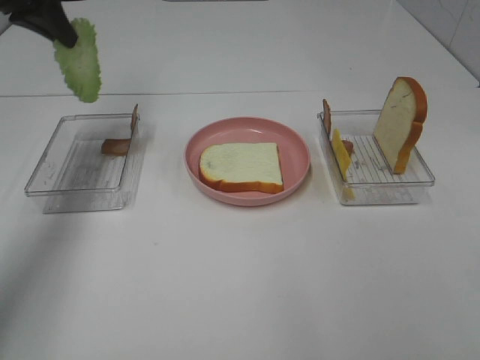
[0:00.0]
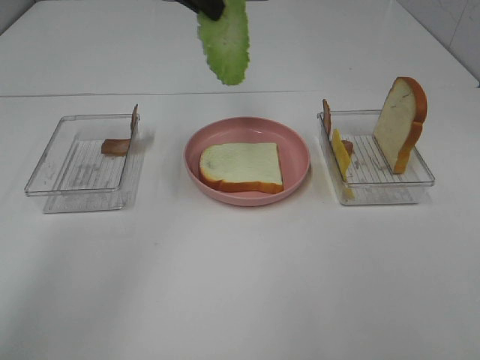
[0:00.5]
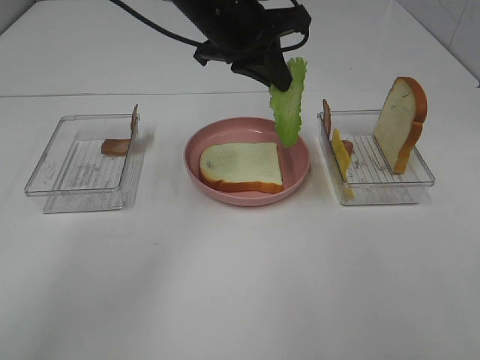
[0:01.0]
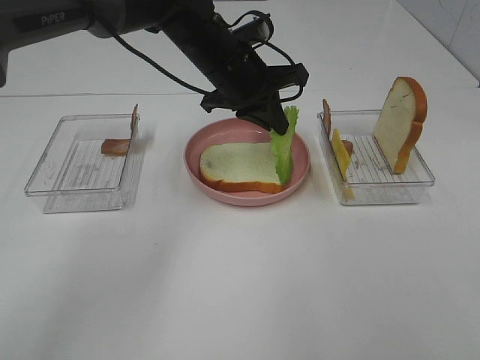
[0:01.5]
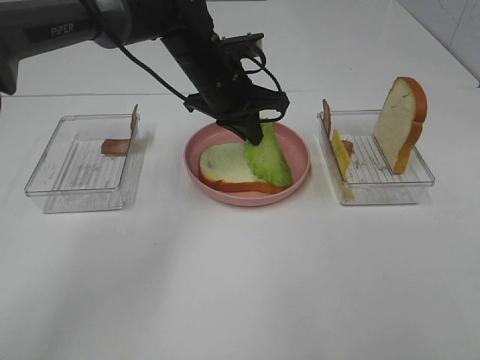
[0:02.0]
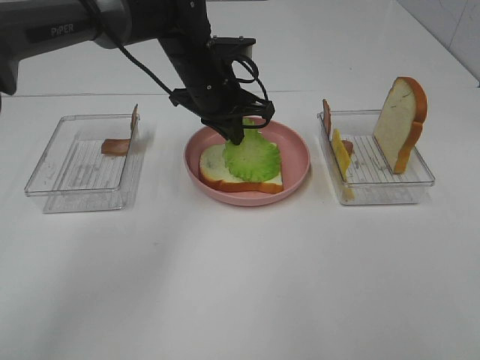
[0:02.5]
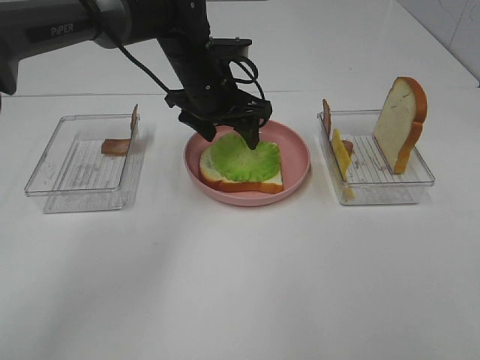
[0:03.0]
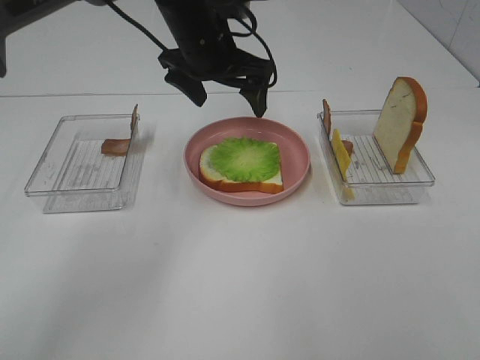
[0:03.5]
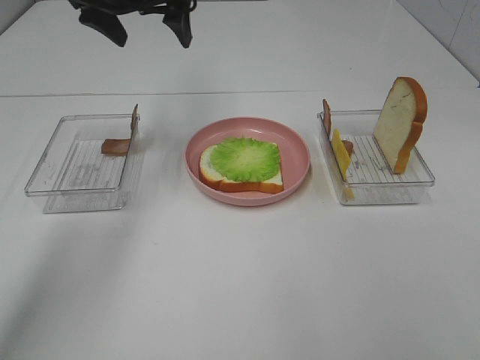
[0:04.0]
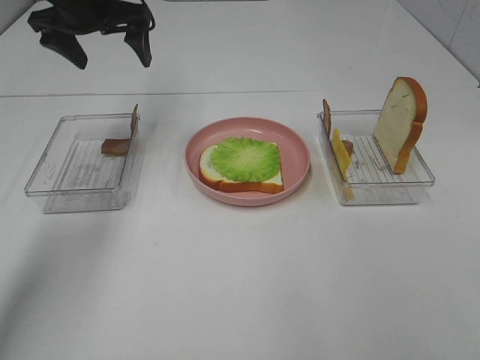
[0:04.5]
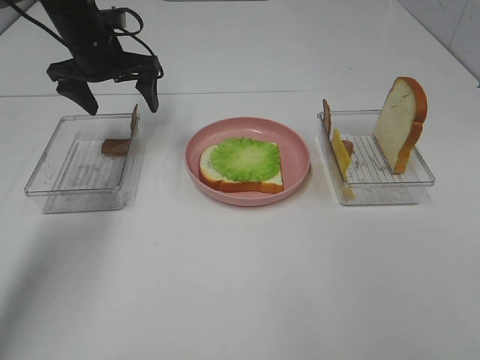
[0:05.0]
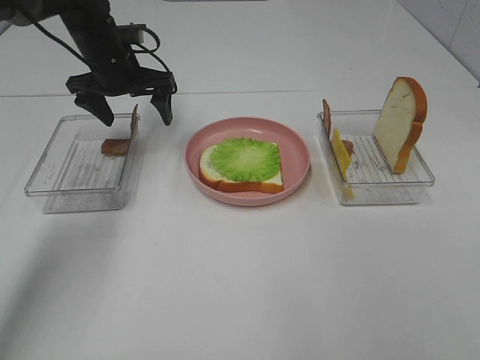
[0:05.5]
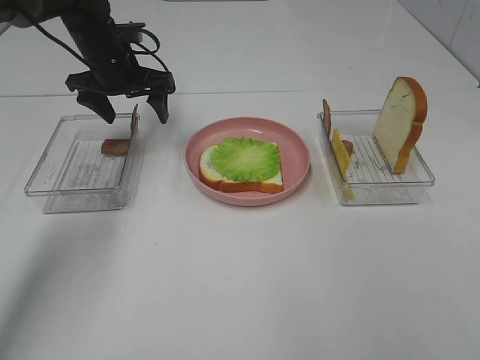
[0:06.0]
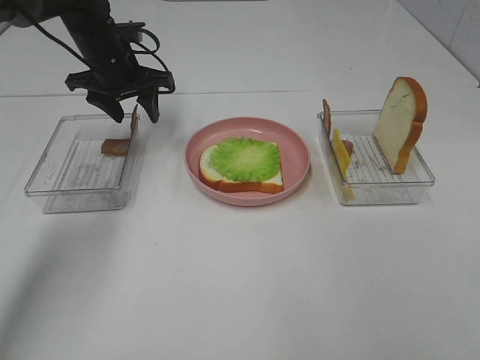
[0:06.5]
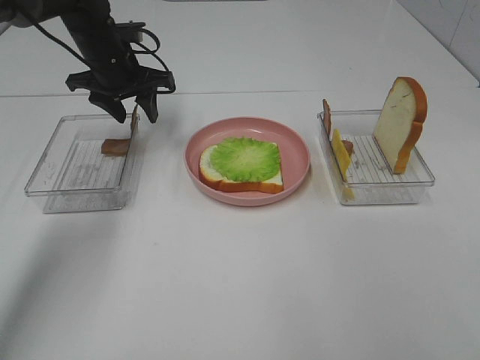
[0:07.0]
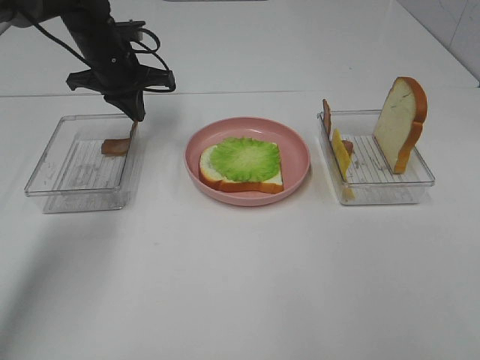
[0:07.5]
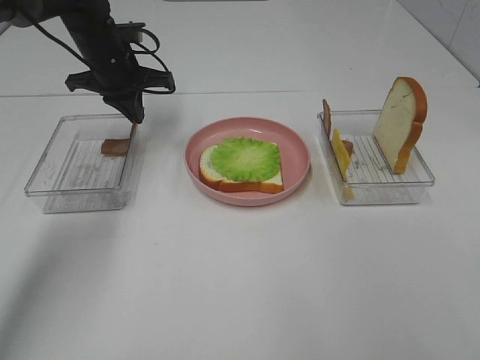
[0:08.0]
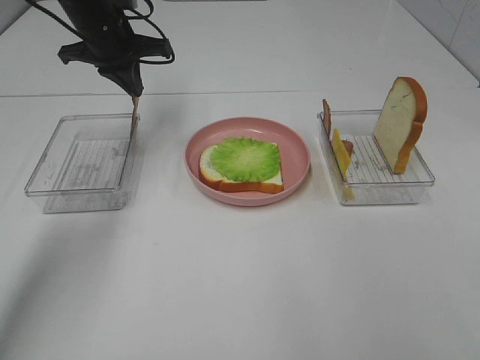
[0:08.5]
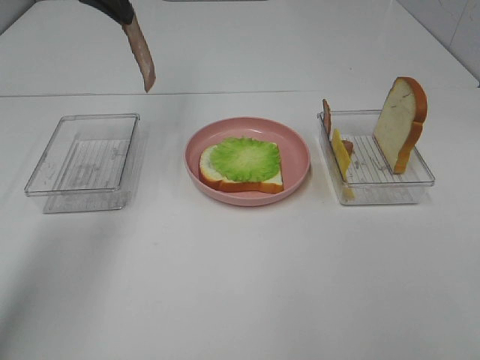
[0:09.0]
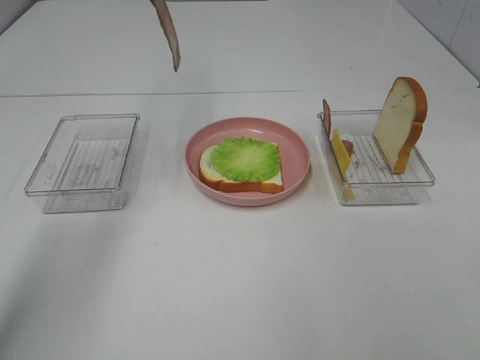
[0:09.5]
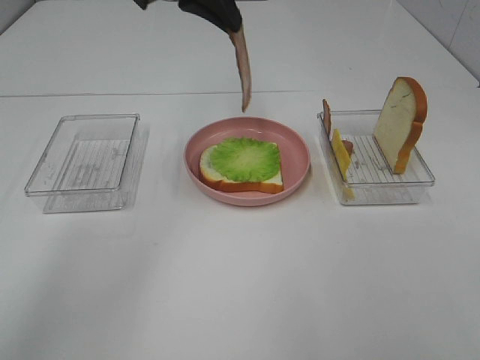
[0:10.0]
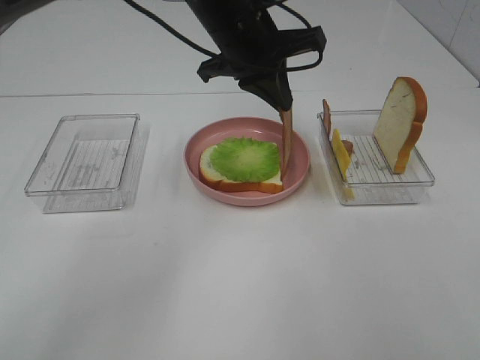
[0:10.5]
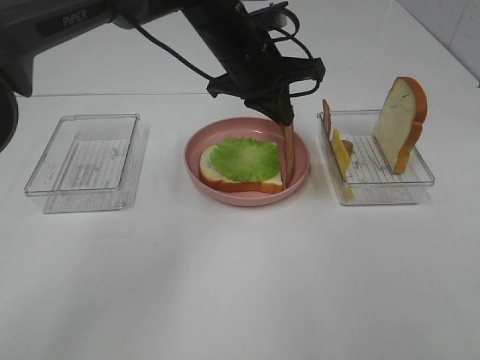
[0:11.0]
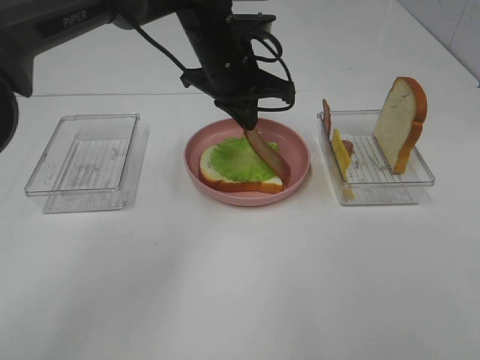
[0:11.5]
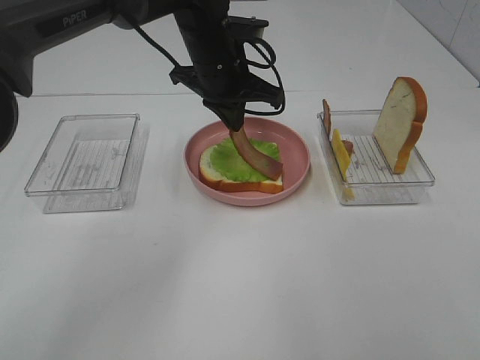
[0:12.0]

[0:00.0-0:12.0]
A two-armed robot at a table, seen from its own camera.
Task of the whole recording: Make sandwiches.
Step, 0:00.0 to 0:03.0: Left hand:place the lettuce slice on the bread slice.
Step, 0:03.5 to 0:07.5: Left hand:grab the bacon.
0:00.0 to 0:02.0: The left gripper moves to the right and downward, about 25 cm.
0:02.0 to 0:04.0: The left gripper is displaced to the left and upward by some 20 cm, and opens up.
0:04.0 to 0:06.0: The left gripper goes roughly 10 cm downward.
0:06.0 to 0:08.0: The left gripper closes up.
0:08.0 to 0:10.0: The left gripper travels upward, to the right and backward by some 20 cm.
0:10.0 to 0:12.0: The left gripper shifts about 10 cm downward.

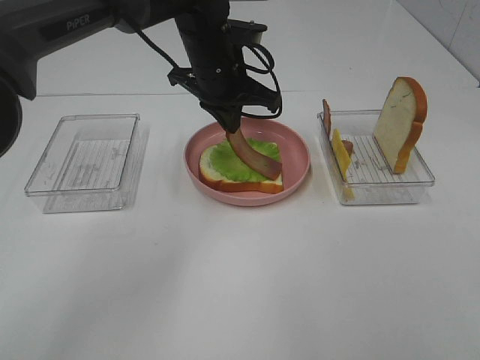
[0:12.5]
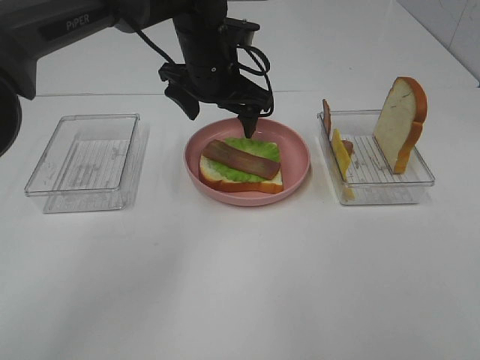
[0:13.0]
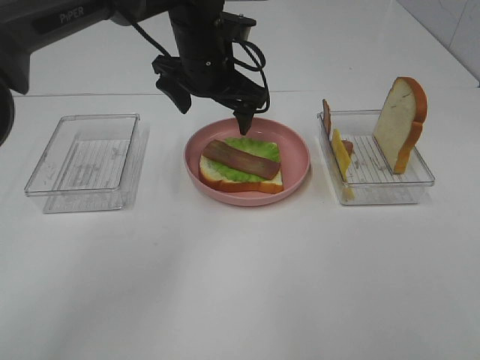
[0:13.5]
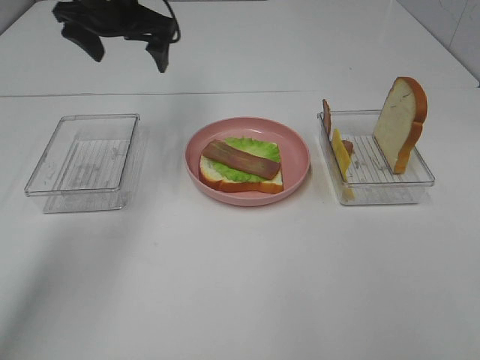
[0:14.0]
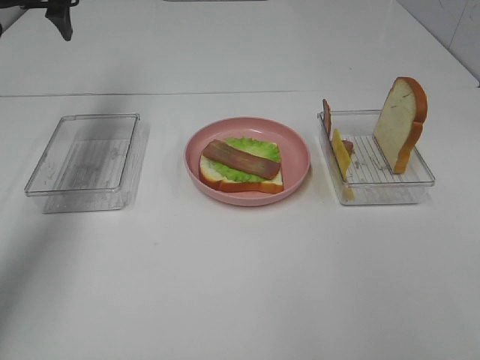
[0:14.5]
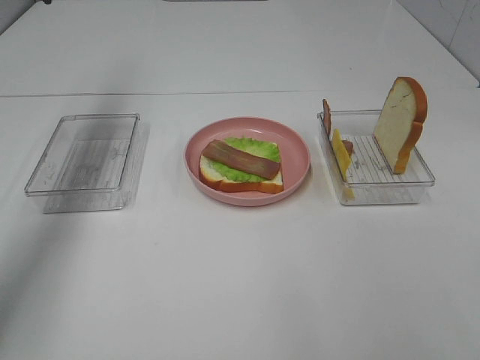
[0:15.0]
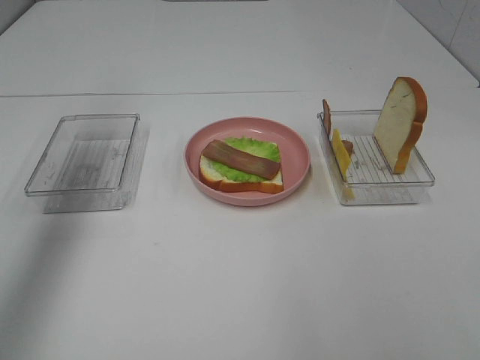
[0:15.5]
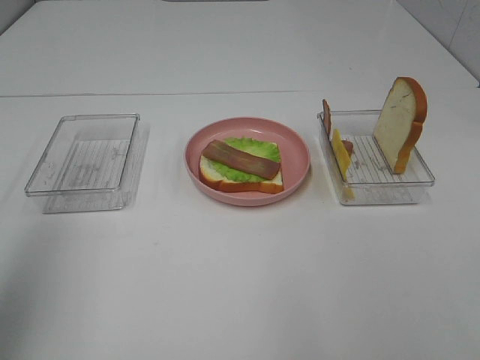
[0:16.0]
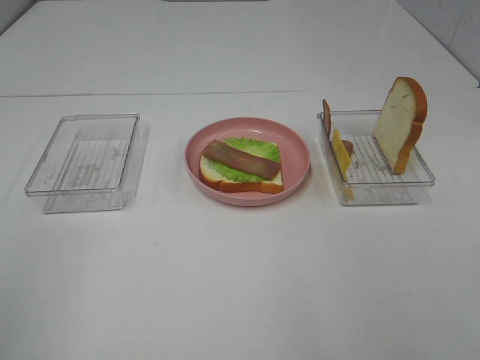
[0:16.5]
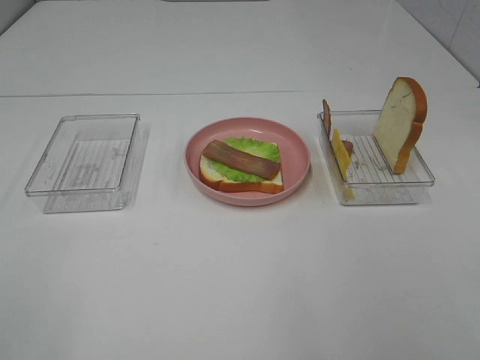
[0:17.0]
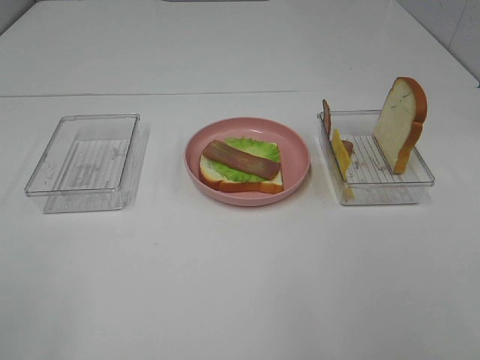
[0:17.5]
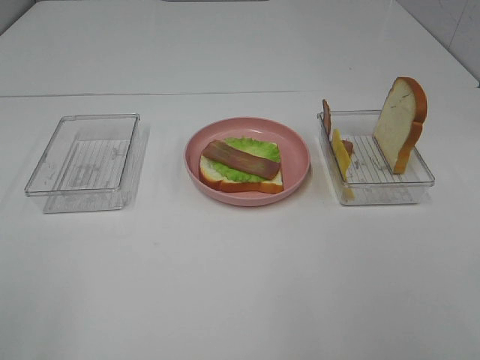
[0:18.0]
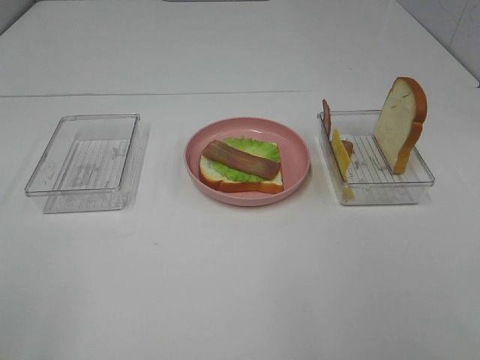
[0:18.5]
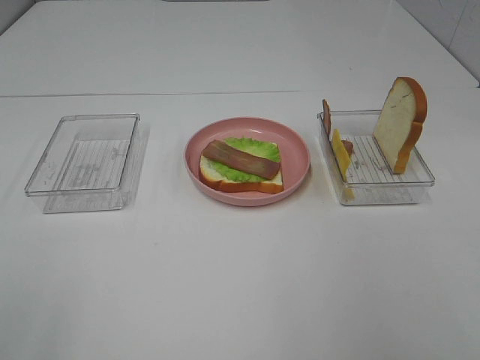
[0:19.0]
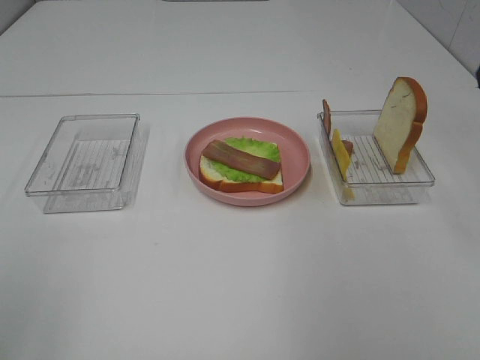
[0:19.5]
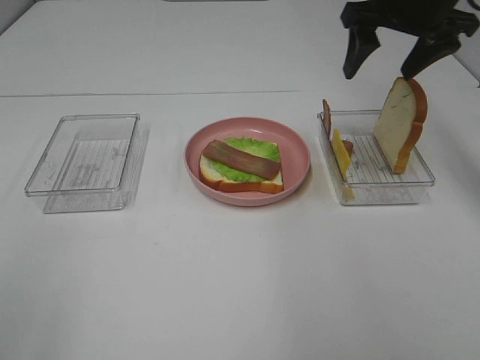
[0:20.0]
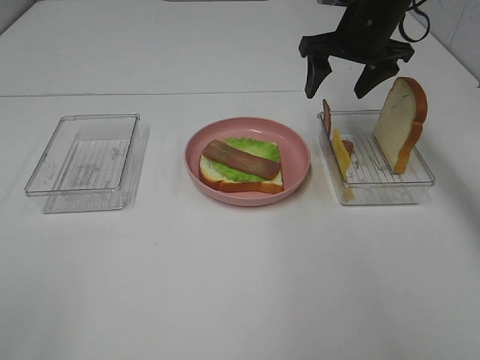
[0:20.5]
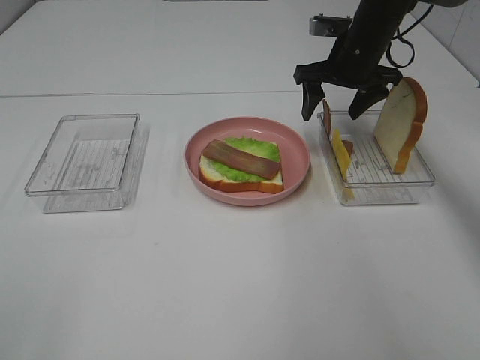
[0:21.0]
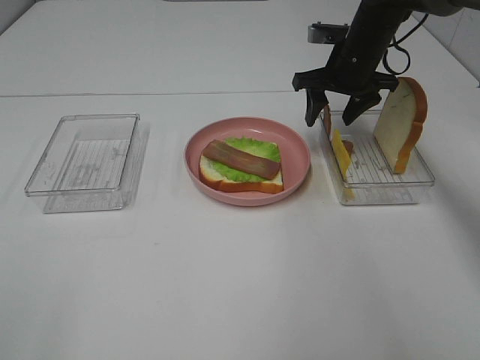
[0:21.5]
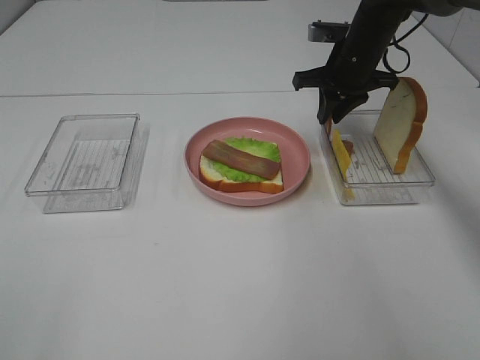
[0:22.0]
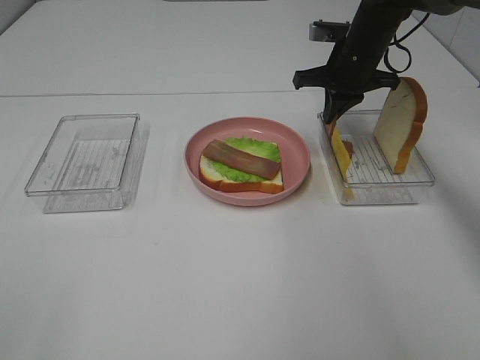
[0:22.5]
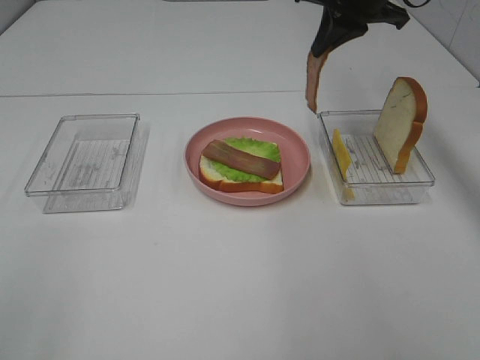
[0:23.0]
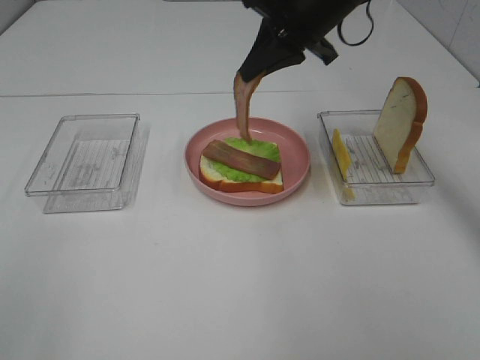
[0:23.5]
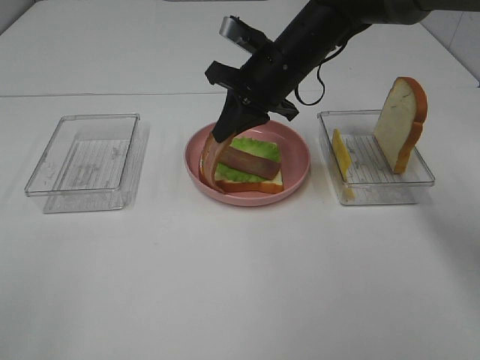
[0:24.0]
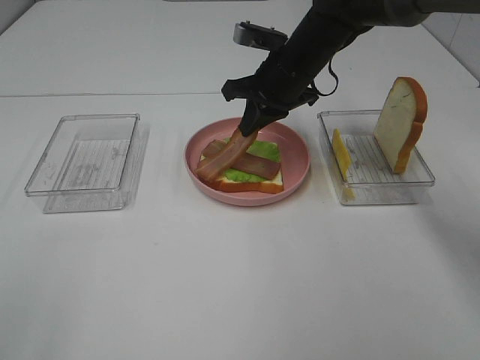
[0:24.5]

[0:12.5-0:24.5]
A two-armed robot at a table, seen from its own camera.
Task of the whole recording: Make sandwiches.
Step, 0:13.0 to 0:22.0: Right hand:grab the bacon.
0:12.5 to 0:14.5: The left gripper goes roughly 25 cm to the left, and opens up.
0:14.5 to 0:16.5: The left gripper moves backward, approximately 50 cm.
0:18.5 to 0:20.5: The right gripper moves forward, roughly 50 cm.
0:20.5 to 0:22.5: The right gripper ends up about 5 cm from where it was, and closes its fingers.
0:22.5 to 0:24.5: The right gripper goes some 10 cm to the left, and moves some 10 cm upward and comes back.

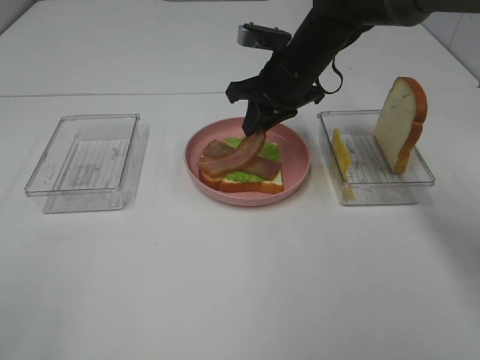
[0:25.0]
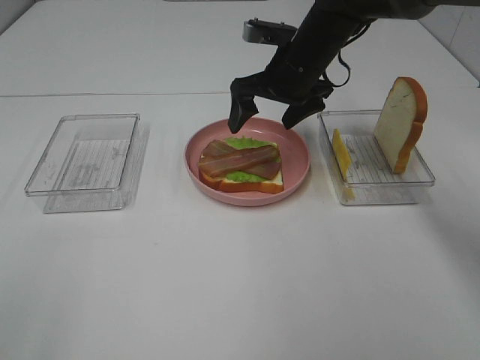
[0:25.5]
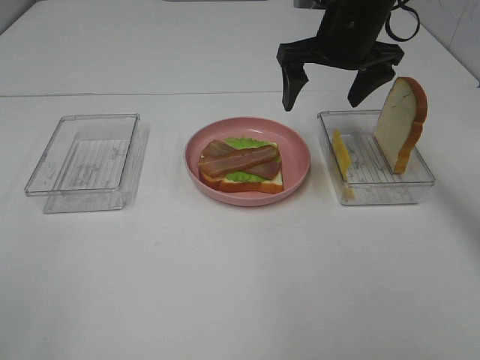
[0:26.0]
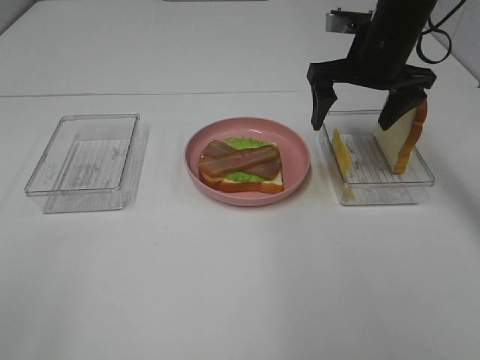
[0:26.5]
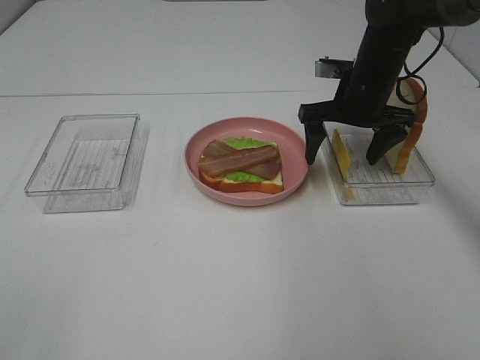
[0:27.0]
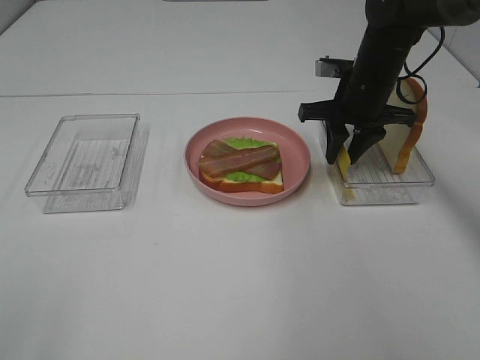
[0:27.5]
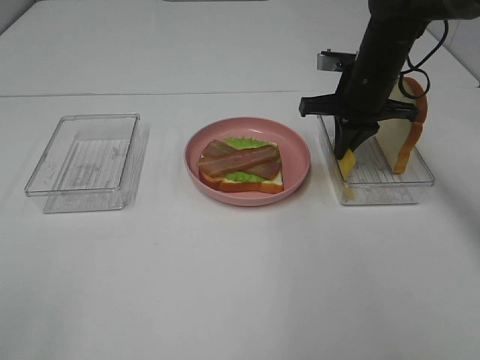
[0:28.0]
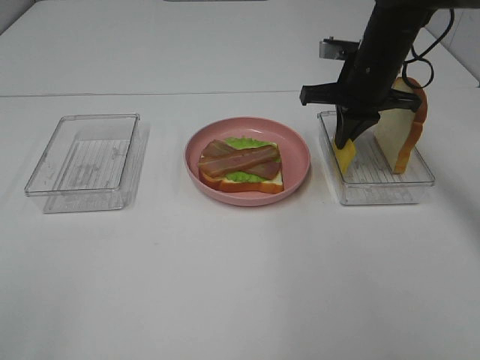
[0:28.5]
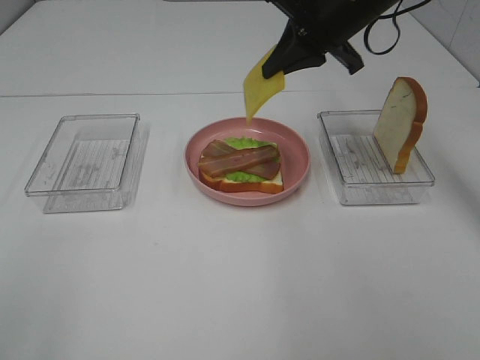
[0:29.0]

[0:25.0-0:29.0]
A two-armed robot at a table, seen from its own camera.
Task of the whole recording: Make sandwiches.
Step, 0:25.5 to 0:28.0: Right hand:grab the cheese slice.
0:25.0 to 0:27.0: The right gripper shifts some 10 cm to the right, and opens.
0:27.0 to 0:29.0: The right gripper is displaced upward by about 10 cm, and closes its fingers.
